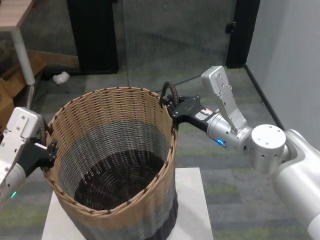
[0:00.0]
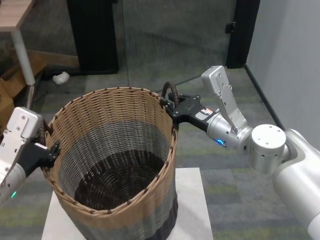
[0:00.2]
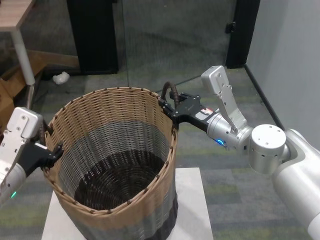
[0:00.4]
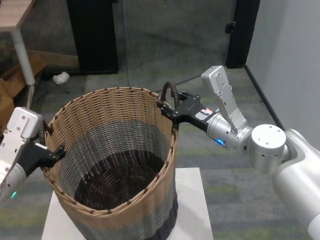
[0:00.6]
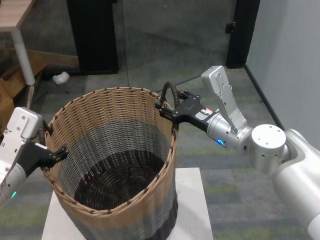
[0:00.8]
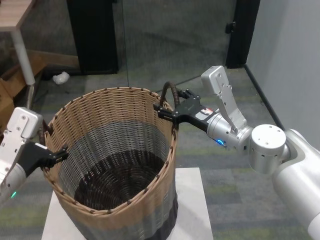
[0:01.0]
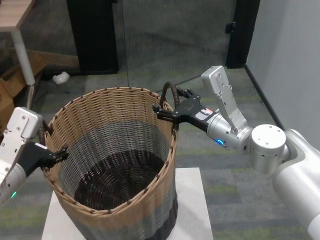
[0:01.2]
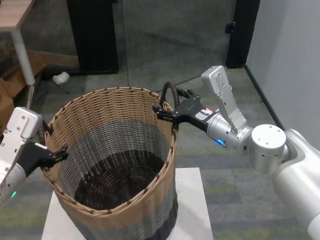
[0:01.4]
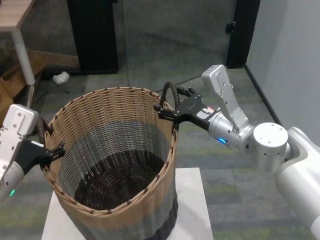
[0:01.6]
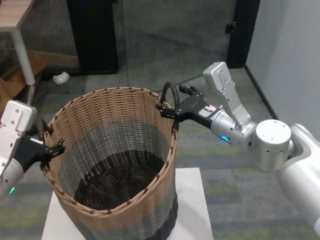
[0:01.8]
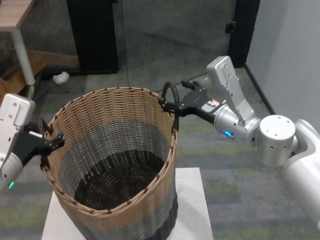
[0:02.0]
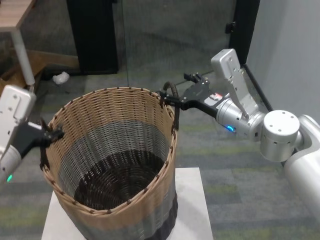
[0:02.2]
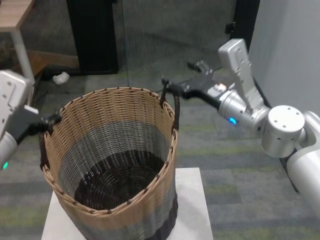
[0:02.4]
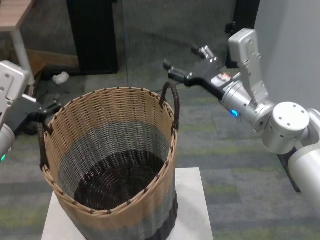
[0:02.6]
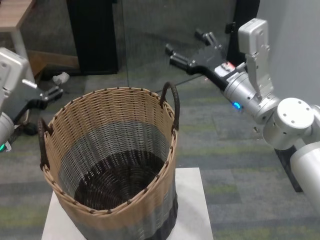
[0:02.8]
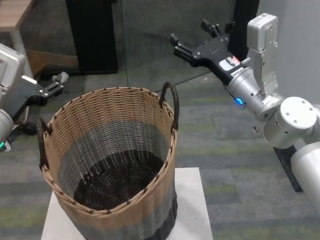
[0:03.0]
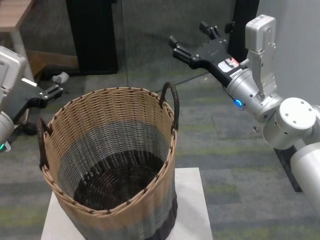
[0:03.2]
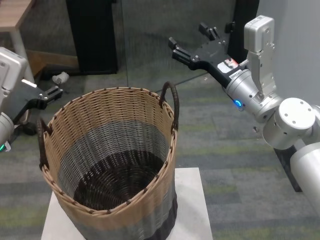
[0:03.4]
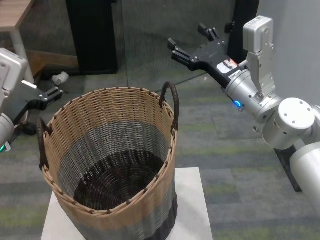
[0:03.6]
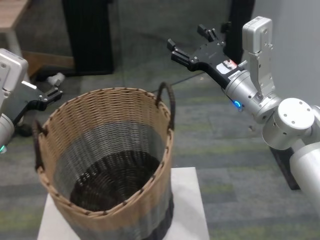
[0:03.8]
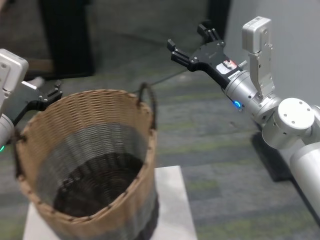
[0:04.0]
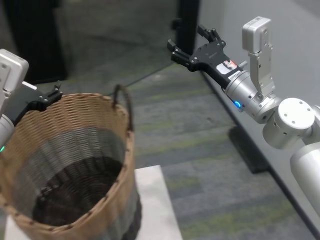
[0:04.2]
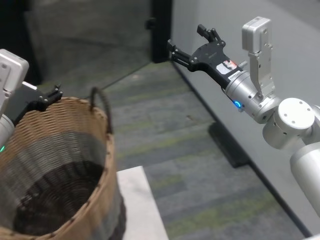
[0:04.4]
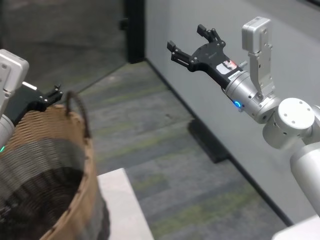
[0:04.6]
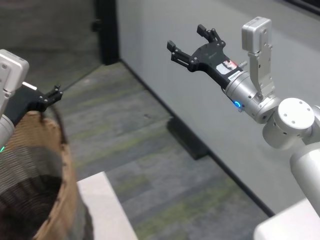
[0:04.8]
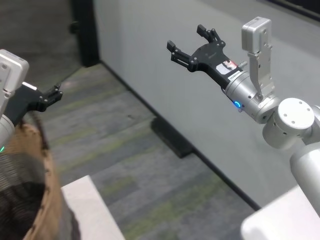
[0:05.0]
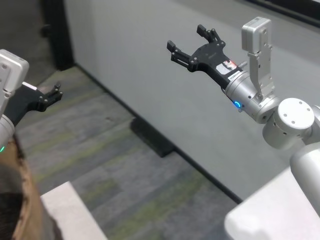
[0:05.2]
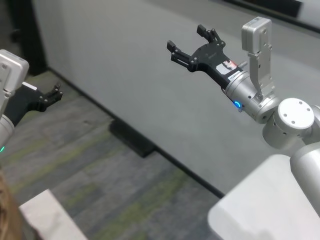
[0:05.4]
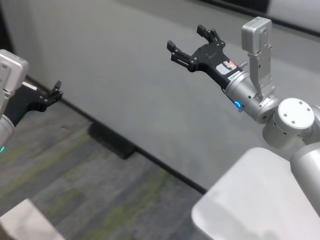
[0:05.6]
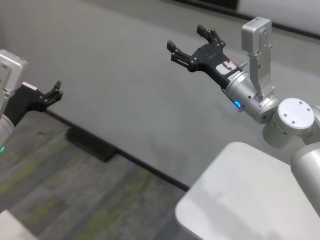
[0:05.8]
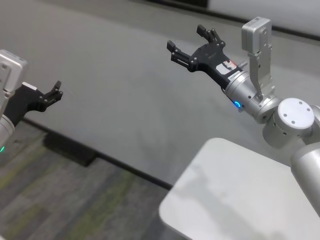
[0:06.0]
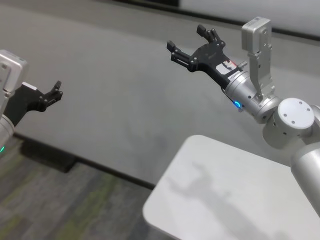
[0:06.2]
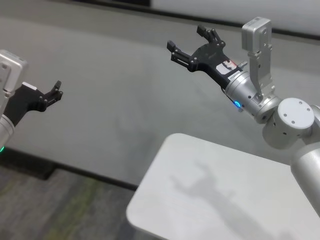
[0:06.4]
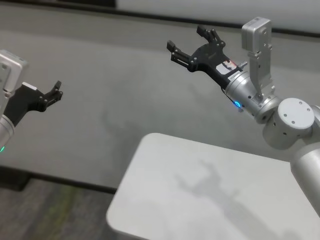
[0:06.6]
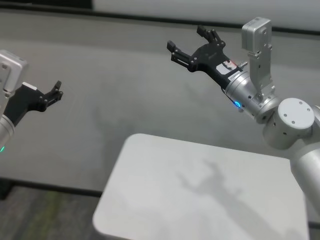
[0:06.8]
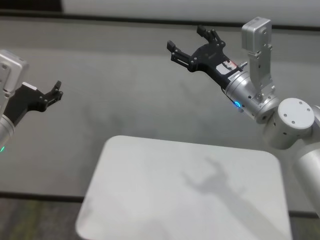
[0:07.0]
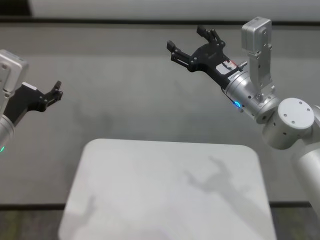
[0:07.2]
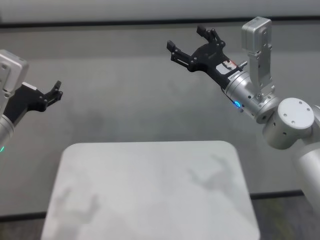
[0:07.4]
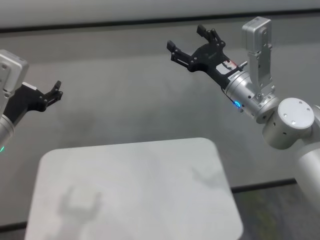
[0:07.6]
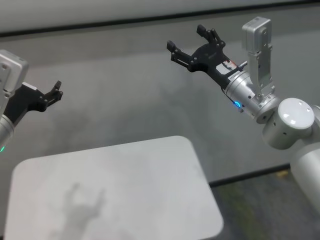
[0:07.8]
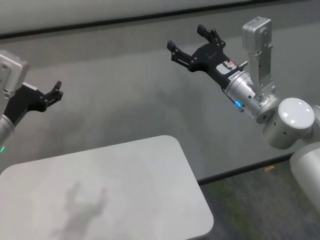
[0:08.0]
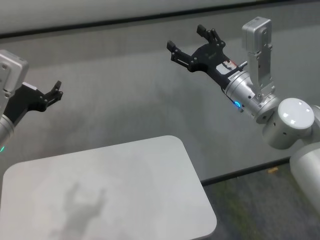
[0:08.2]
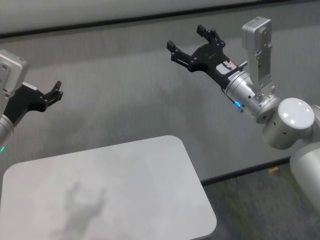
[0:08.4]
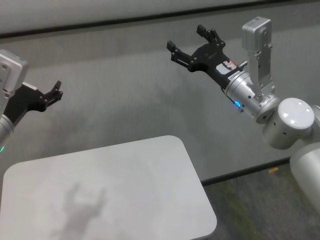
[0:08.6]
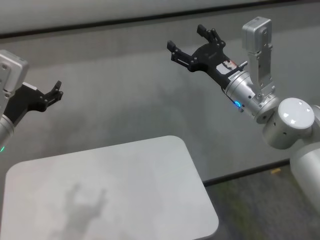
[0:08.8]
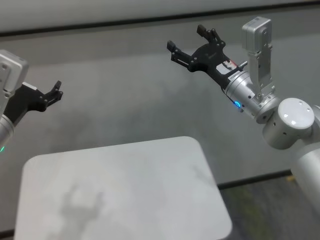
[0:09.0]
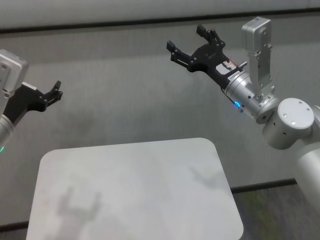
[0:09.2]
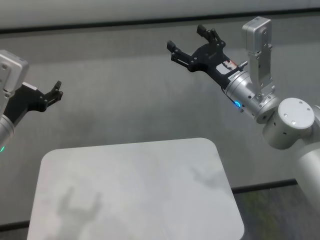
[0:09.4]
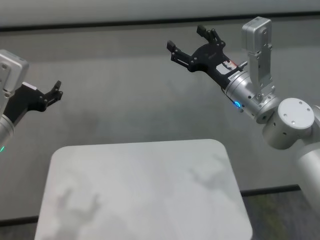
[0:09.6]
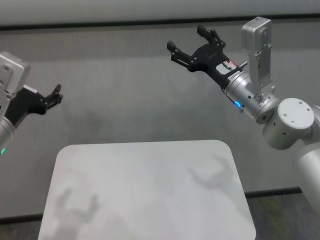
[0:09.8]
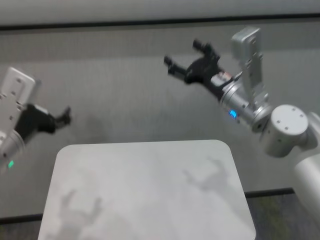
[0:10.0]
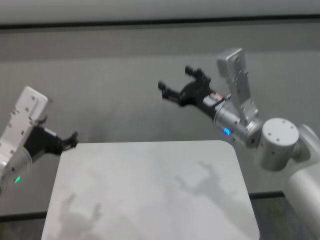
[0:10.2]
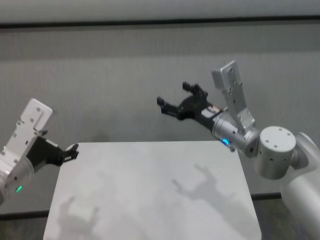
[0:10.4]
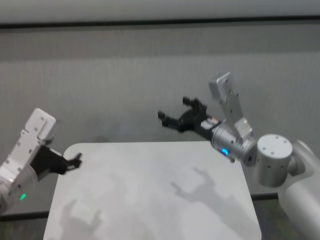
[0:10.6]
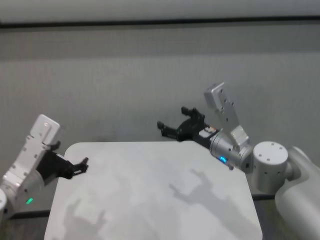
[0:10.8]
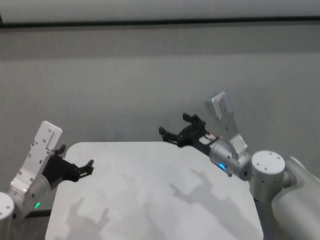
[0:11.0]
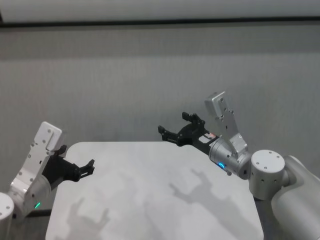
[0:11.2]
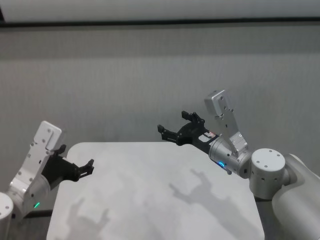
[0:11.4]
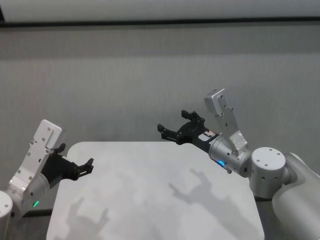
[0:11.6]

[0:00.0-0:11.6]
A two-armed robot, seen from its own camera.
Task of the whole recording: carry the clothes basket in coordination with both hands.
Step, 0:00.0 to 0:02.0: Place the basket on the table with both grippers.
